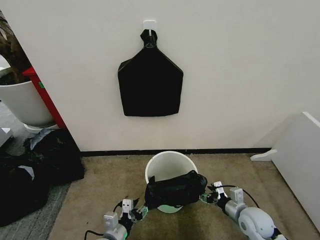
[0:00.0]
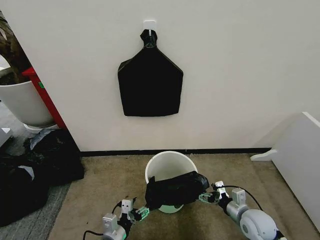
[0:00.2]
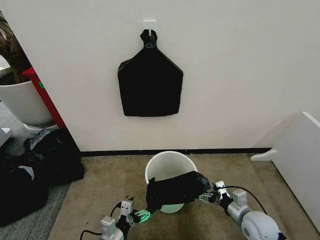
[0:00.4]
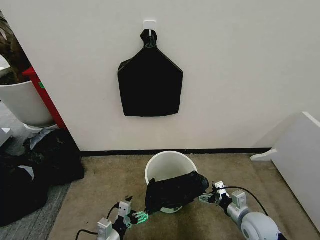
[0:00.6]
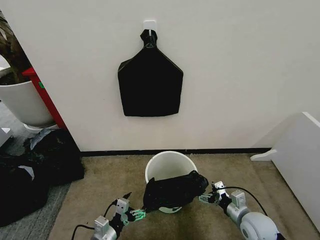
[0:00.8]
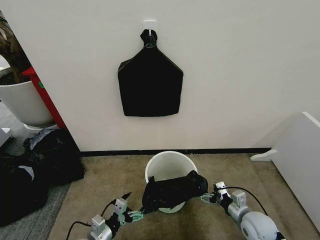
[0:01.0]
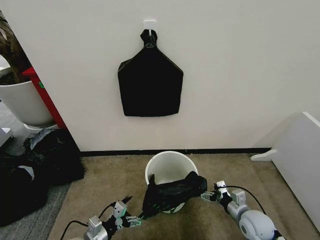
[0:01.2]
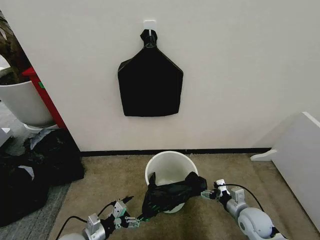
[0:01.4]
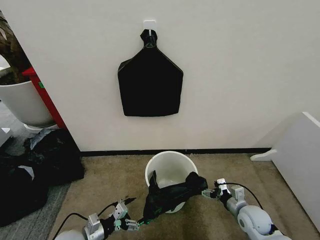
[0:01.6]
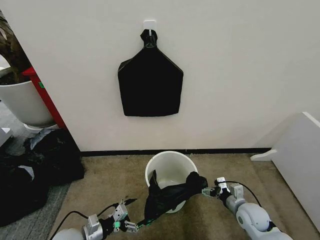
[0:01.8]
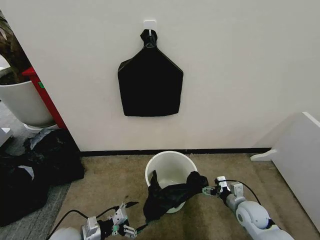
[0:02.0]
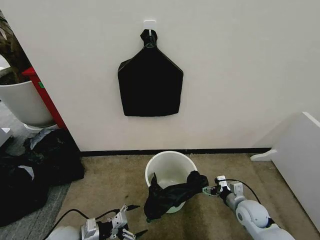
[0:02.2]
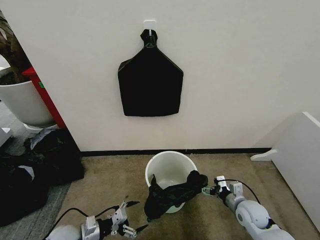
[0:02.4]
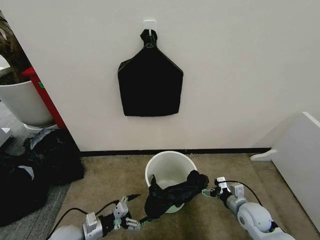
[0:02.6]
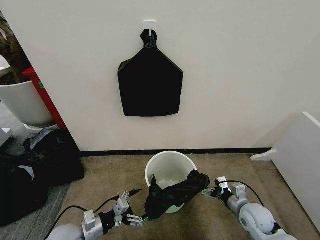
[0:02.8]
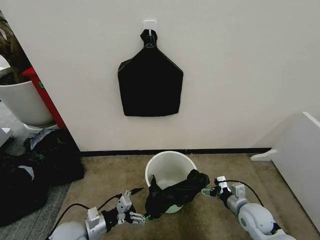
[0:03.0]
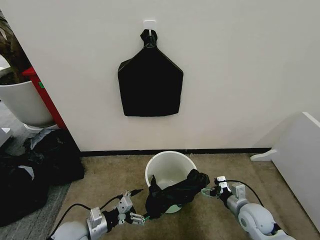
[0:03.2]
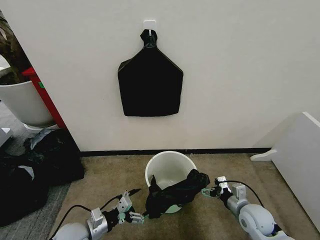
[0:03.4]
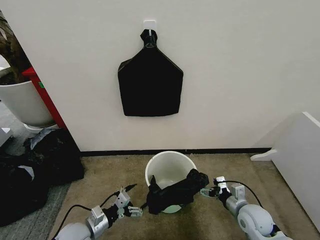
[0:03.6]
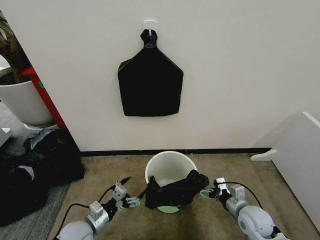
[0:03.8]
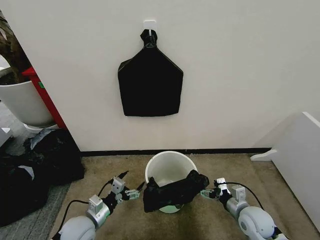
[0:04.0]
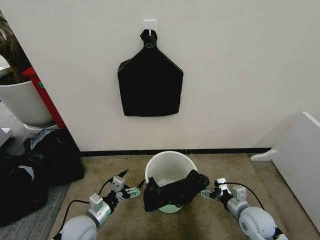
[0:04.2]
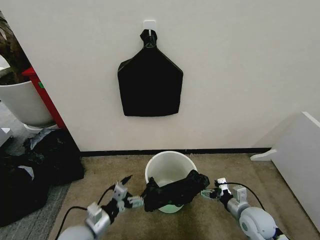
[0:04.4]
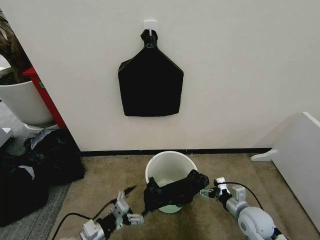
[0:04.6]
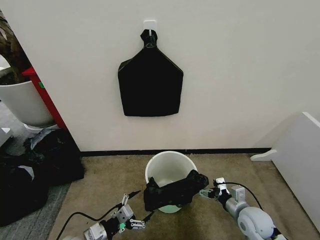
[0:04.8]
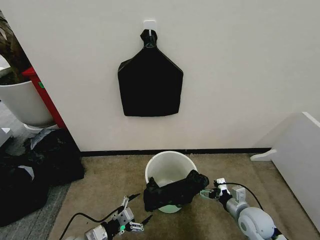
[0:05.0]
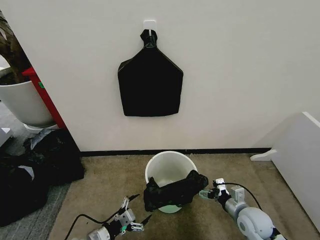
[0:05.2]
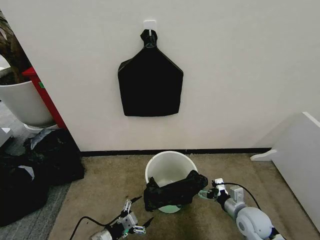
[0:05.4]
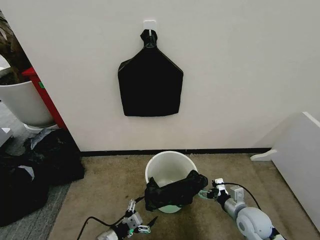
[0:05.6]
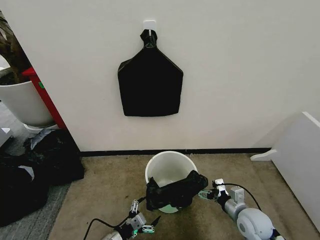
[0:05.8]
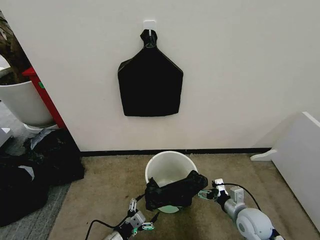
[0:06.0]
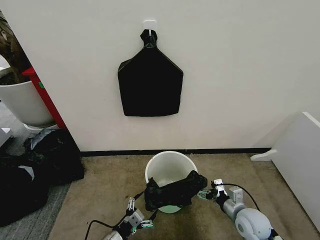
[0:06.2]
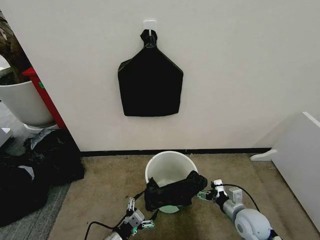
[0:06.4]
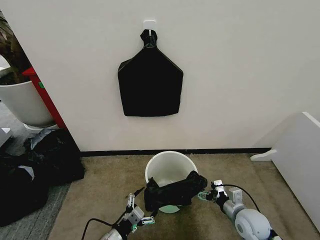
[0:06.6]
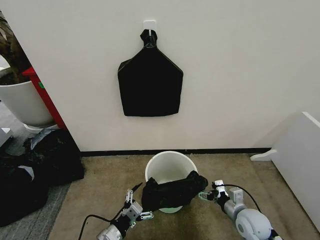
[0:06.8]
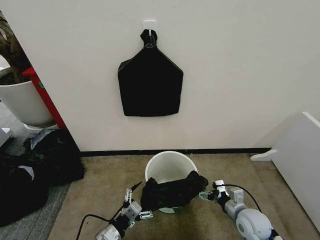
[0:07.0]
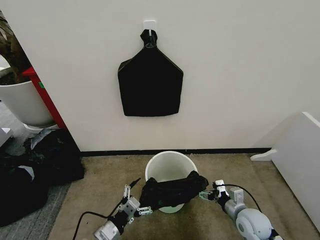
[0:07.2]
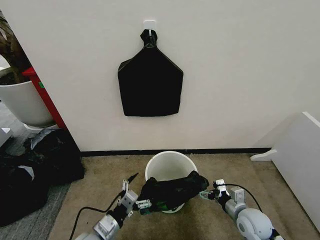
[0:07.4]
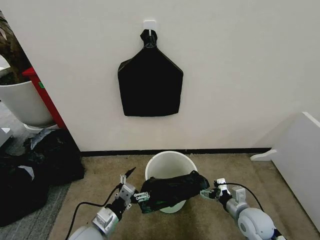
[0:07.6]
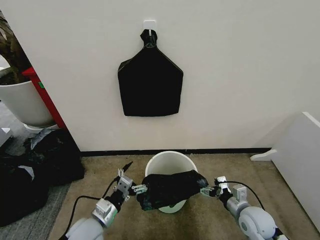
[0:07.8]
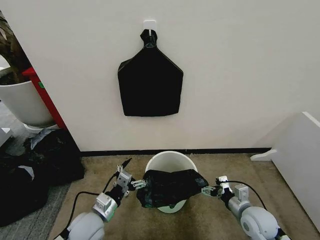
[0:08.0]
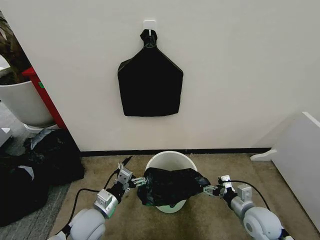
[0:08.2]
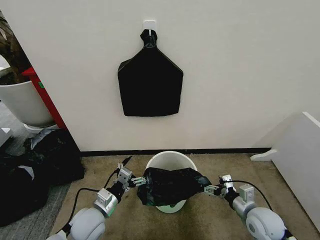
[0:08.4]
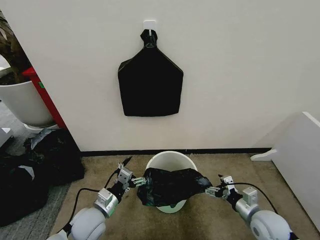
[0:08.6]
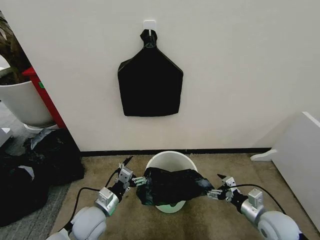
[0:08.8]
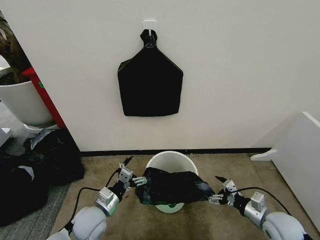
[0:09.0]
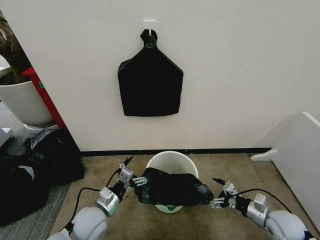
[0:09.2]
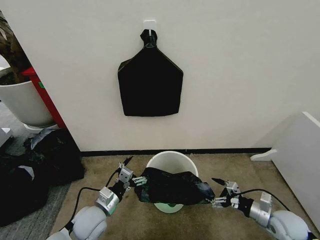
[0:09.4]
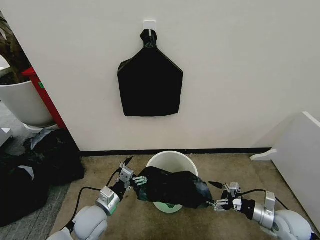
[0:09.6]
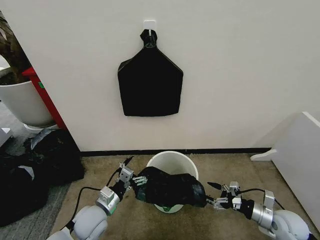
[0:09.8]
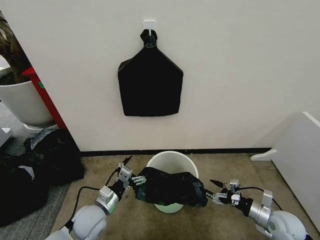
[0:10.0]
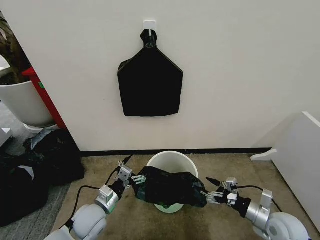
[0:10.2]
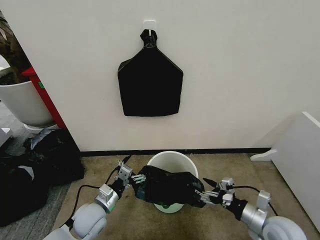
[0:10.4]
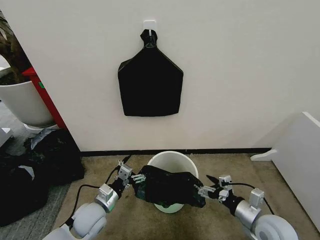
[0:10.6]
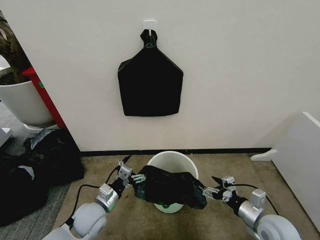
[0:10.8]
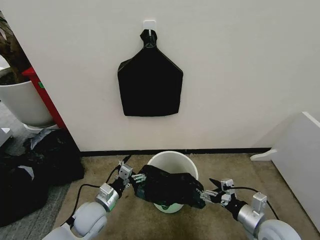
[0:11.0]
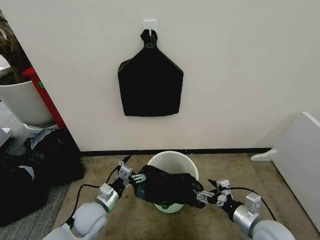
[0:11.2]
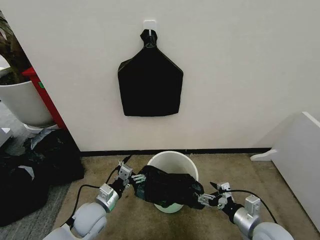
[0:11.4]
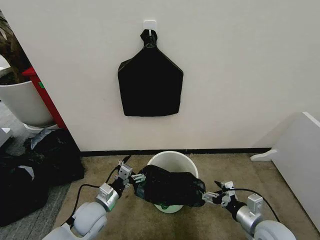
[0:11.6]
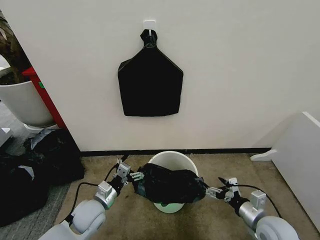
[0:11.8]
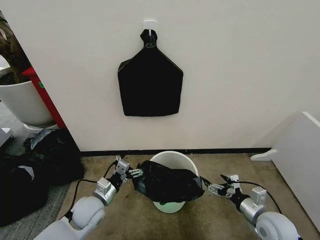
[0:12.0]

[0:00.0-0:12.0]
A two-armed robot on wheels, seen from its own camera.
Task of the whole recording: Place the garbage bag over the trash bin.
0:00.0 to 0:01.6: The left gripper is displaced to the left by roughly 10 cm, and opens.
0:01.6 to 0:03.0: The left gripper is displaced upward by about 5 cm.
0:04.4 to 0:06.0: The left gripper travels downward by approximately 10 cm.
0:06.0 to 0:07.6: The left gripper shifts approximately 10 cm upward.
0:07.6 to 0:09.0: The left gripper goes approximately 5 cm forward, while the right gripper travels to the right by about 5 cm.
0:09.0 to 0:10.4: The right gripper moves roughly 5 cm.

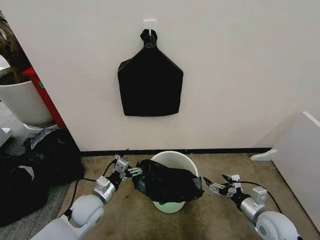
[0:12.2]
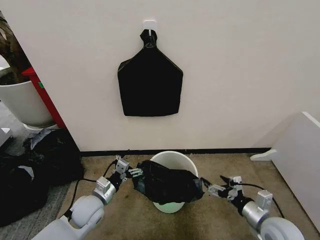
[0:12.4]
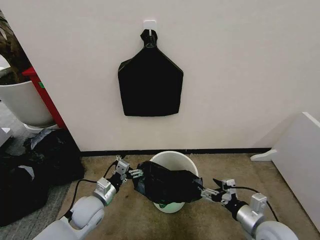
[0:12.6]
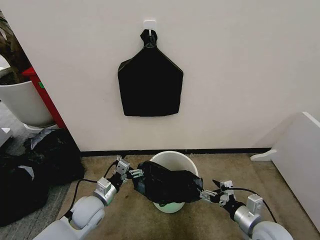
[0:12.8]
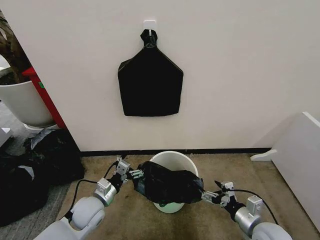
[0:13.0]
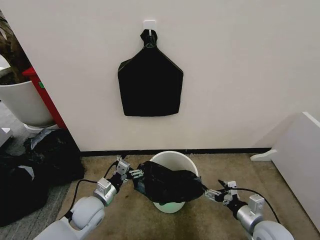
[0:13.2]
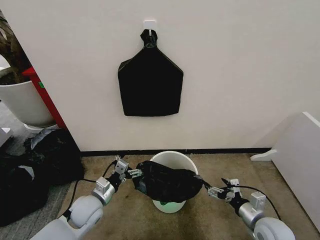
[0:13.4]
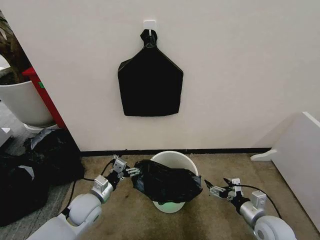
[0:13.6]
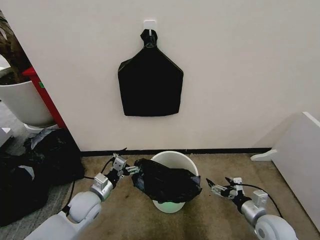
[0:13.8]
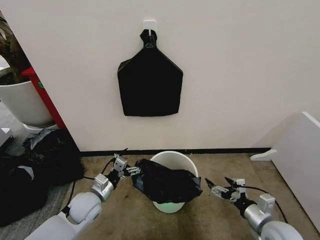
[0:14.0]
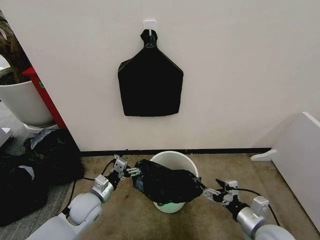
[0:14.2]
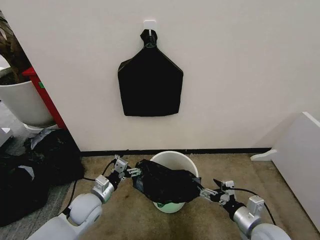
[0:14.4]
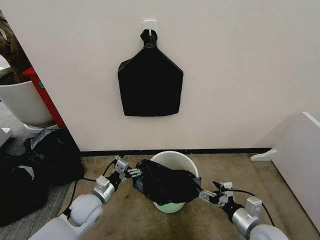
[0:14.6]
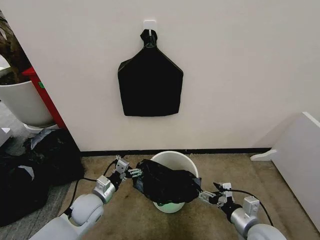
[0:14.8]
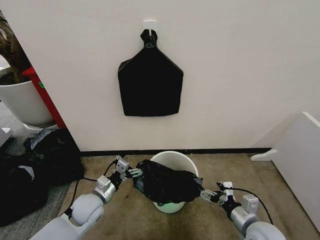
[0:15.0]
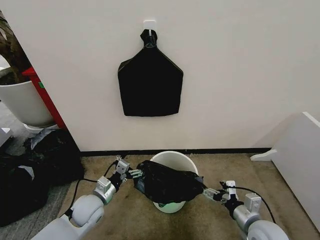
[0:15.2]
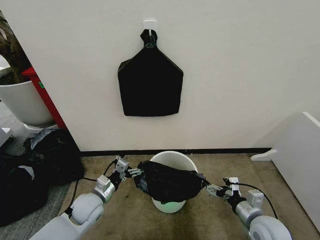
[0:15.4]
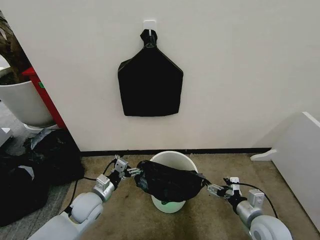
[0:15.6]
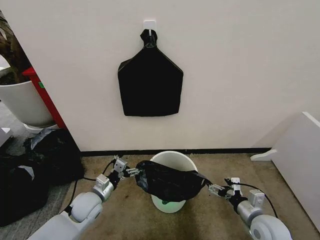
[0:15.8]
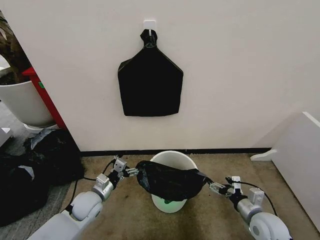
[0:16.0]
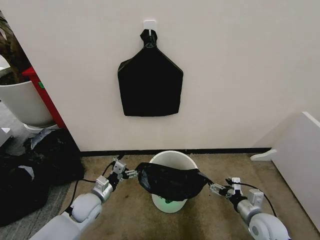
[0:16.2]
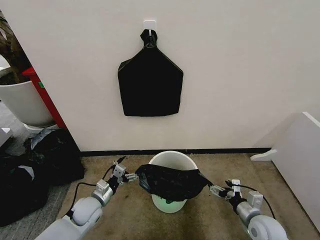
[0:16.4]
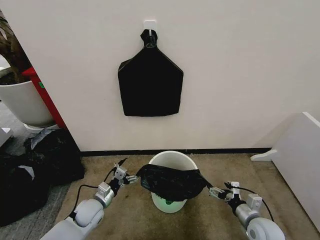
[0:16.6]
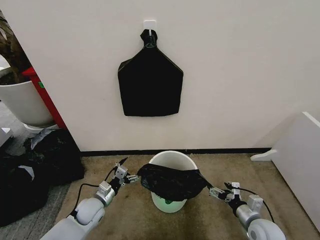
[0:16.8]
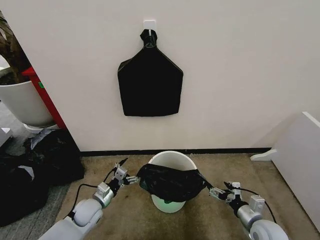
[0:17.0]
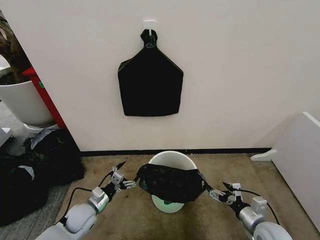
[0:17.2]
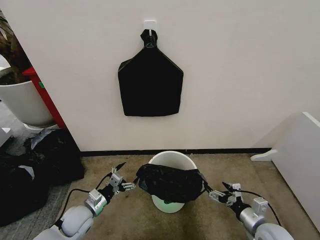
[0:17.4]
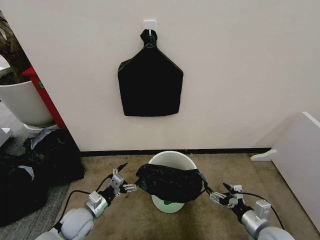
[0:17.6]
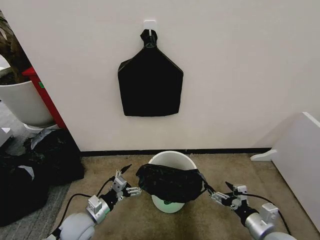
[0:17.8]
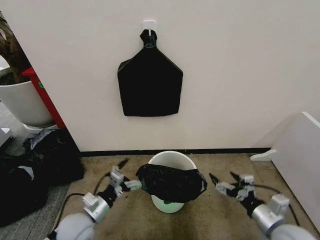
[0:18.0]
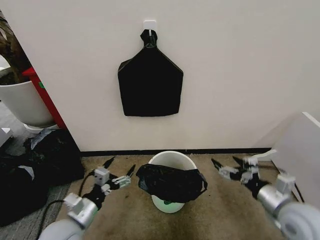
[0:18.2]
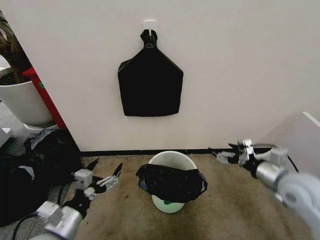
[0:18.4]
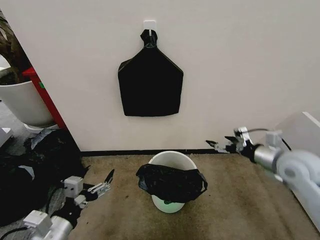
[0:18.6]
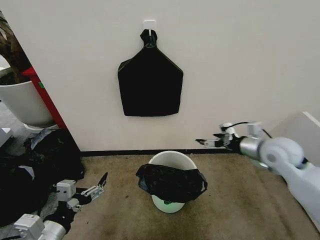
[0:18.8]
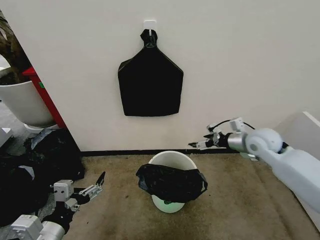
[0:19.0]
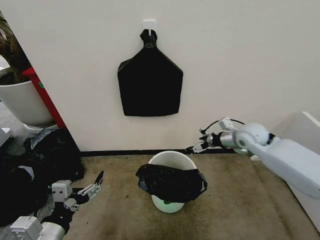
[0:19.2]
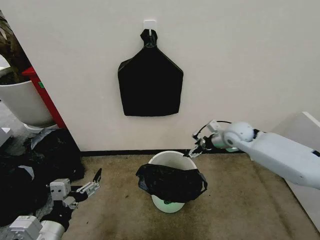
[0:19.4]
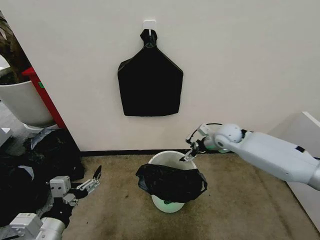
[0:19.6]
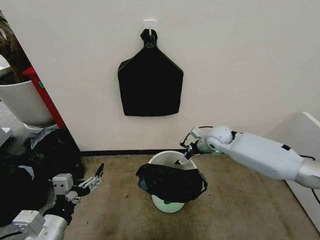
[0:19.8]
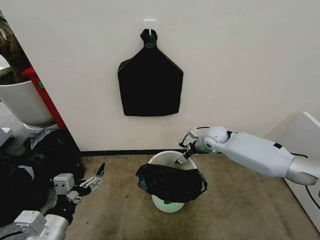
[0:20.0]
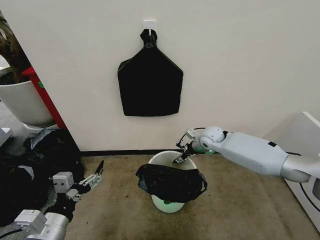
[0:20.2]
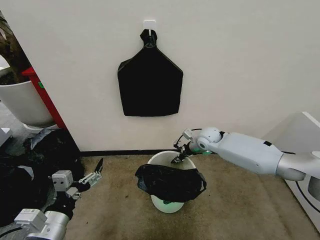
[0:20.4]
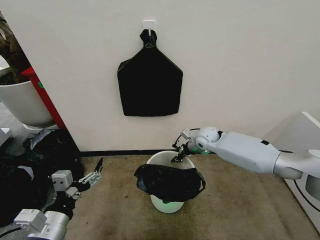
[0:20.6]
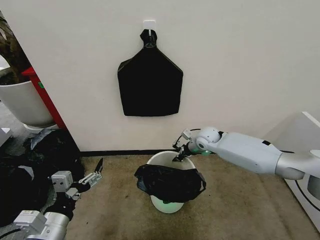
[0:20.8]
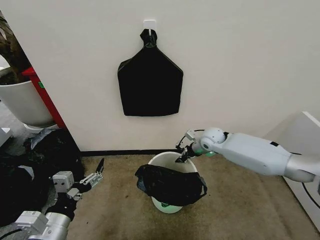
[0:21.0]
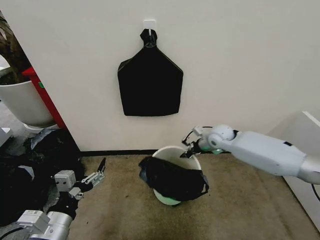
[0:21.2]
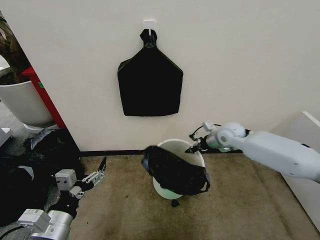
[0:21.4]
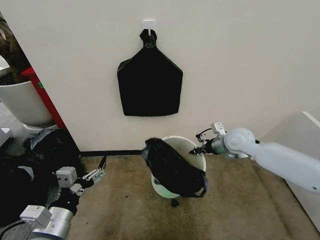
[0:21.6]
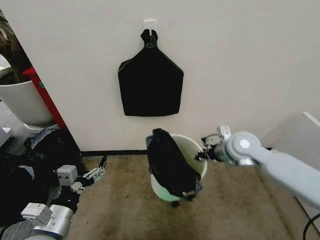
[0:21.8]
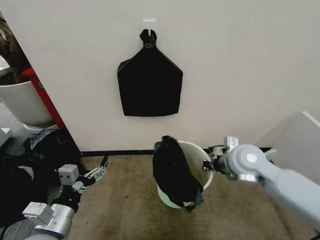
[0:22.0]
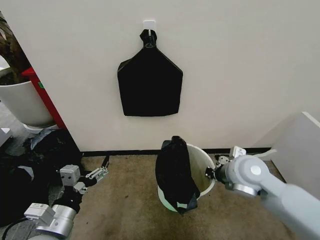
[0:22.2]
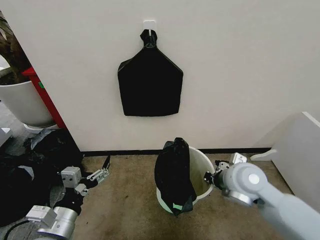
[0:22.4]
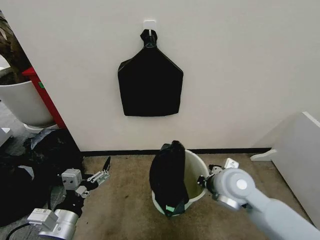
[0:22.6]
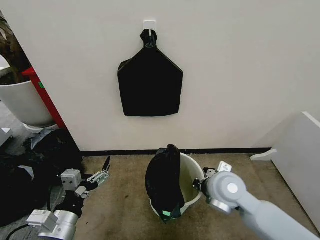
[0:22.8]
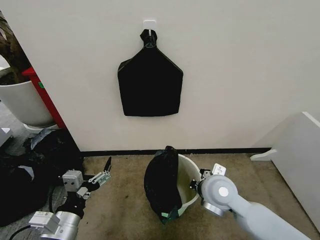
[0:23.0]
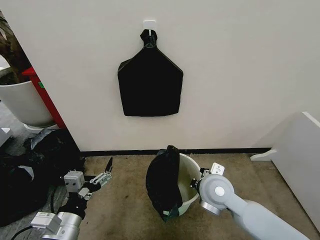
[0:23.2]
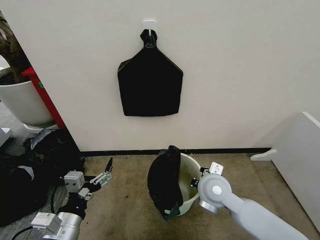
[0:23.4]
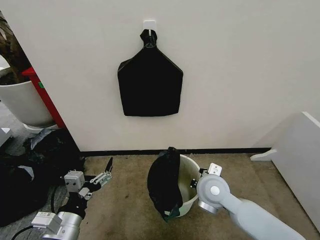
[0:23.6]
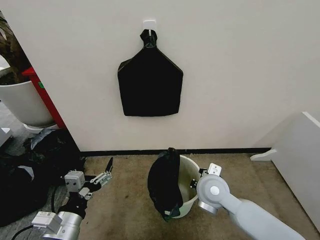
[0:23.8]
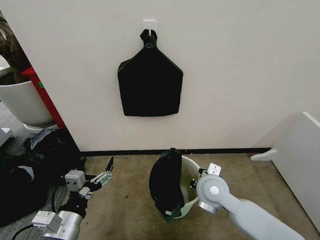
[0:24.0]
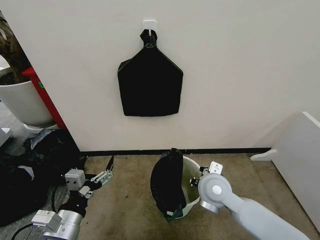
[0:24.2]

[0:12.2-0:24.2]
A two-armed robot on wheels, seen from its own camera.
Task of the whole recording: Place the garbage bag over the trash bin.
0:13.8 to 0:15.2: The right gripper is displaced to the left by some 5 cm.
0:15.2 to 0:16.6: Both grippers travel together downward, some 5 cm.
0:16.6 to 0:18.2: The right gripper shifts roughly 15 cm upward, while the left gripper is displaced upward and backward by about 20 cm.
0:18.2 to 0:19.8: The right gripper is displaced forward and to the left by roughly 30 cm; the left gripper heads upward and backward, covering some 10 cm.
0:19.8 to 0:21.2: The right gripper closes.
0:21.2 to 0:22.6: The right gripper heads backward, covering about 20 cm.
0:22.6 to 0:24.2: The right gripper changes place by roughly 5 cm, and opens up.
